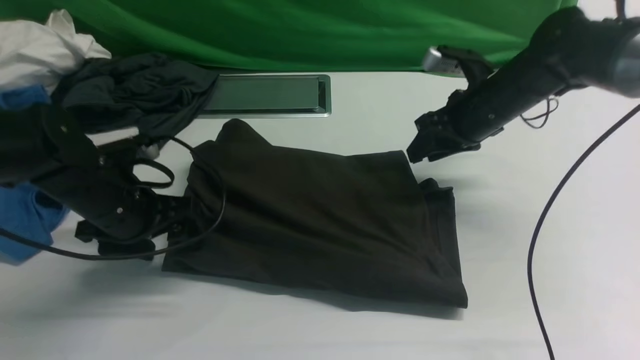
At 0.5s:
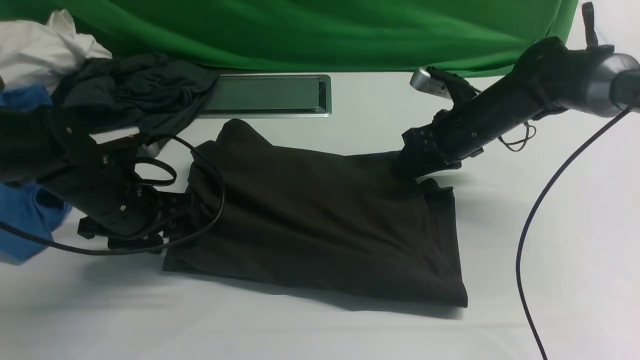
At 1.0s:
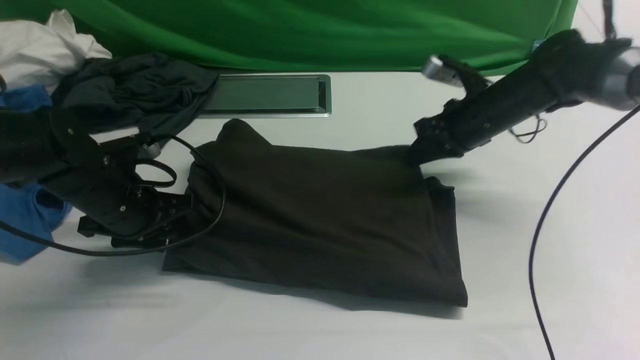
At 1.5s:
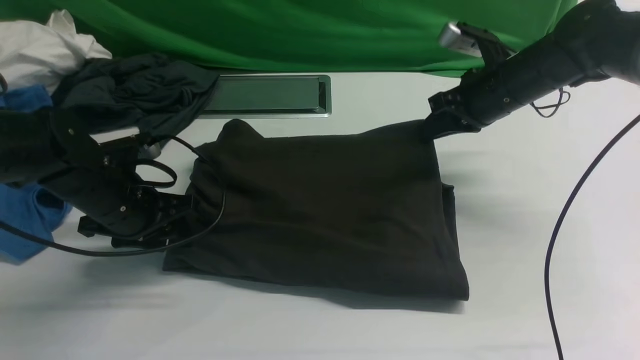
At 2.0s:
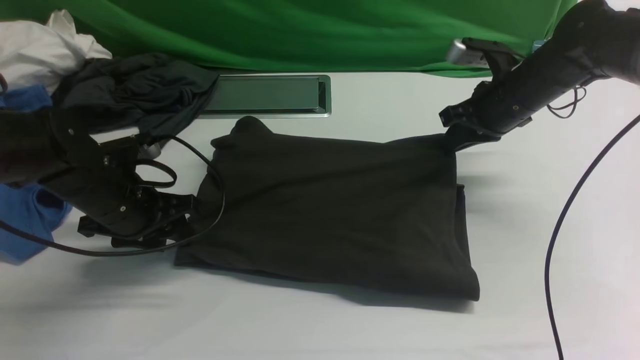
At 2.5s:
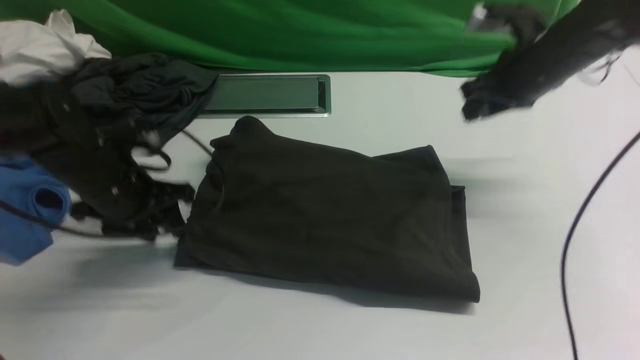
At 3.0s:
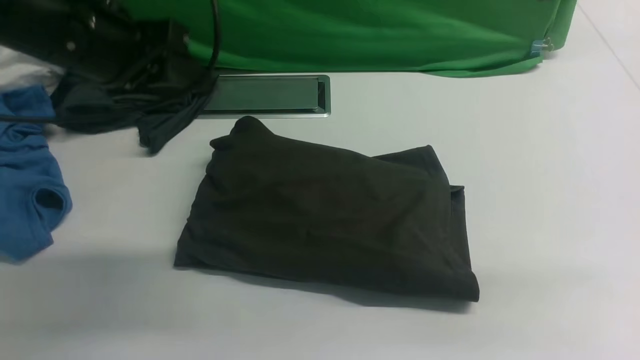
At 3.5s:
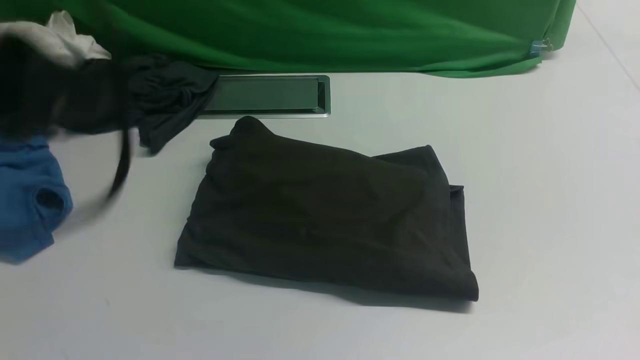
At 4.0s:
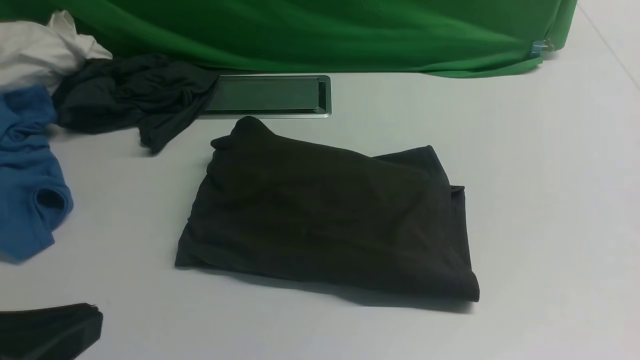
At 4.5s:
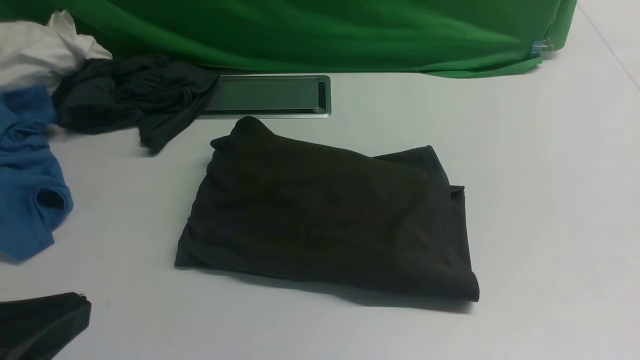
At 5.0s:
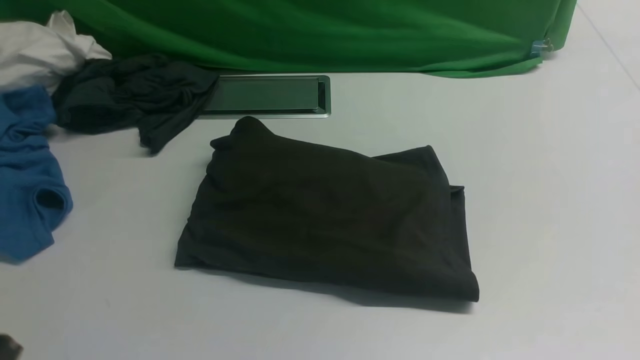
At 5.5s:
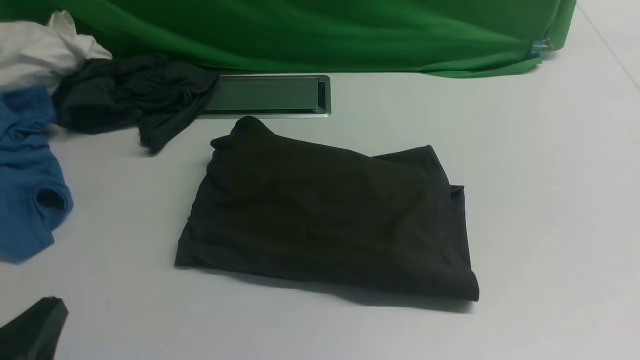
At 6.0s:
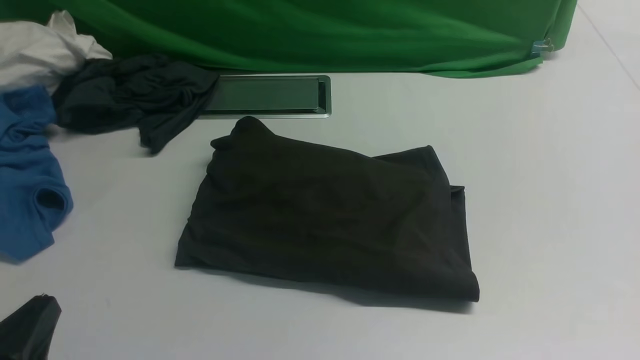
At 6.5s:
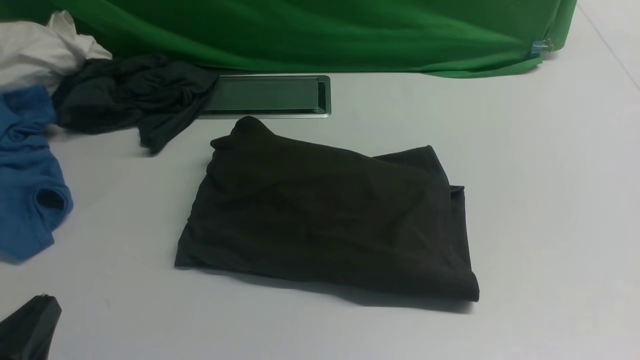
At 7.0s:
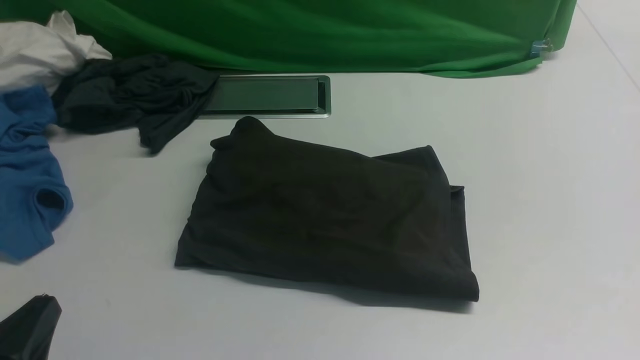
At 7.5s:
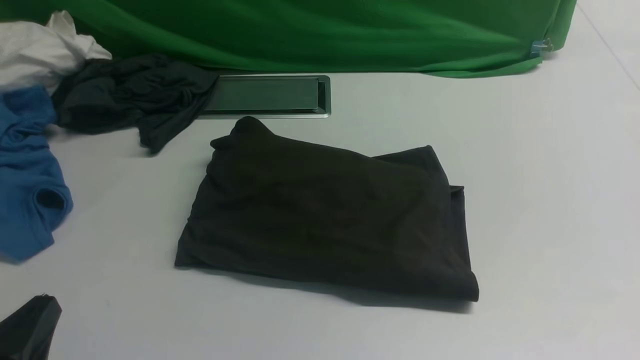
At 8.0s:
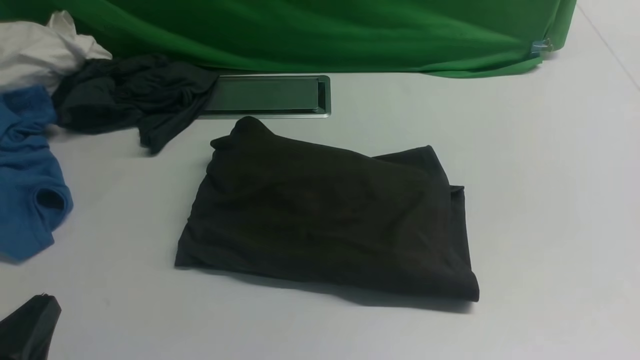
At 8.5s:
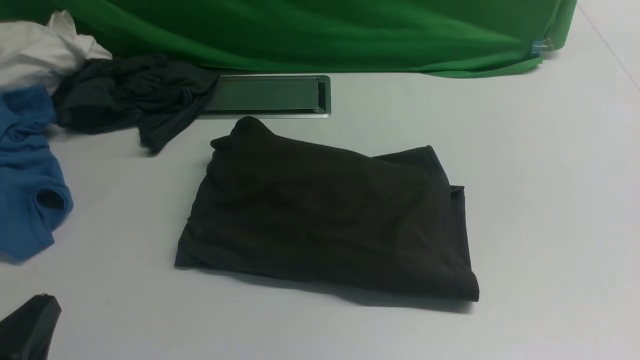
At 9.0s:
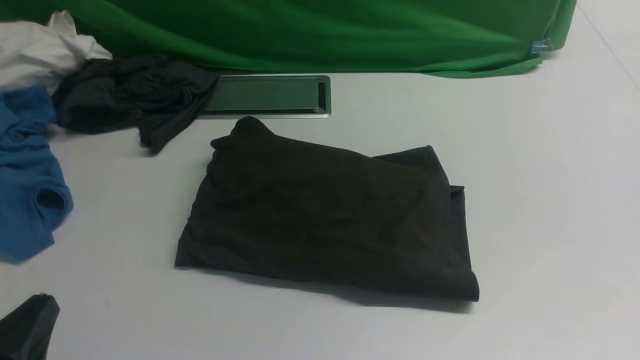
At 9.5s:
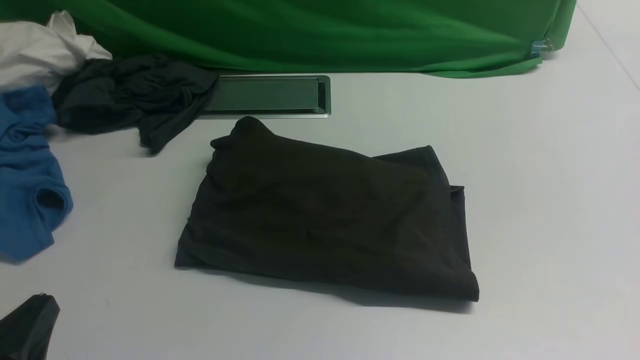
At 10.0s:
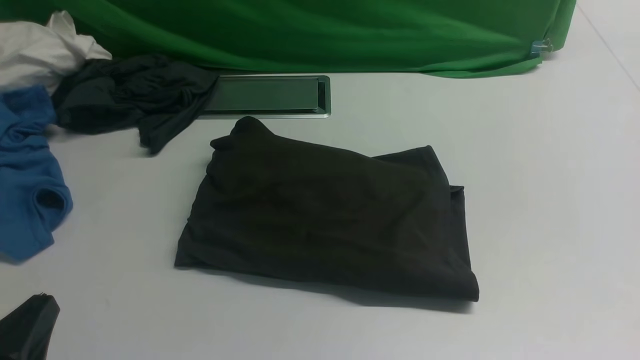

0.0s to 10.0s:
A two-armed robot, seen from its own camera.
0.0s to 2.0s: The right gripper closes up.
2.0s to 4.0s: The right gripper heads backward, covering some 35 cm. The left gripper heads backward and upward, covering about 35 cm, and closes up.
4.0s to 6.0s: The left gripper moves downward, some 15 cm.
8.0s to 10.0s: The two grippers keep their place.
